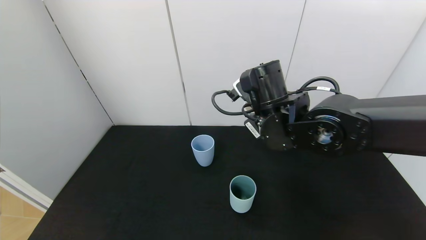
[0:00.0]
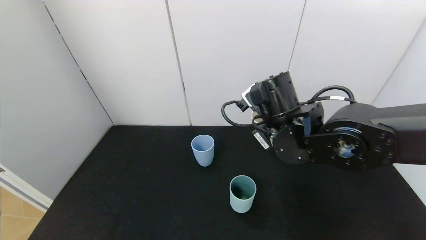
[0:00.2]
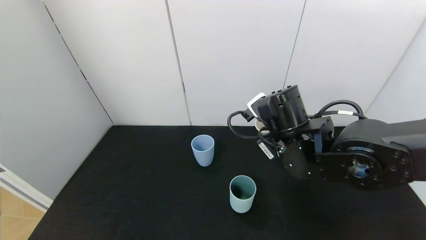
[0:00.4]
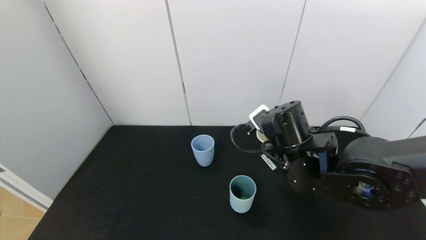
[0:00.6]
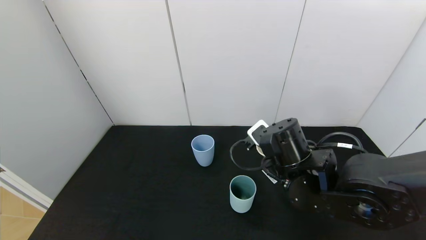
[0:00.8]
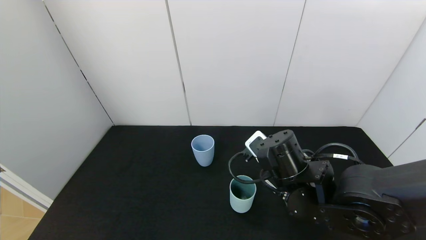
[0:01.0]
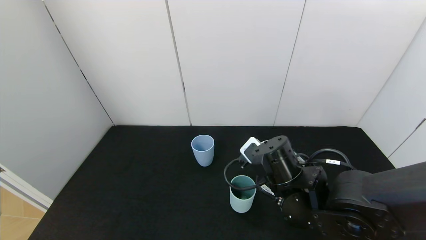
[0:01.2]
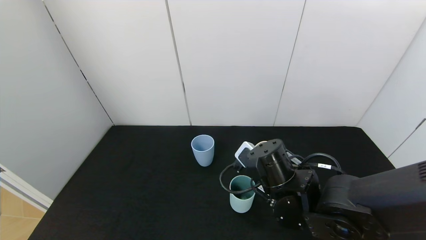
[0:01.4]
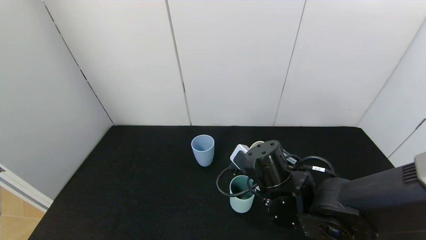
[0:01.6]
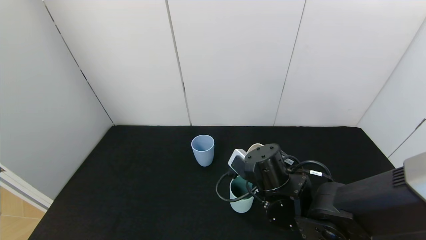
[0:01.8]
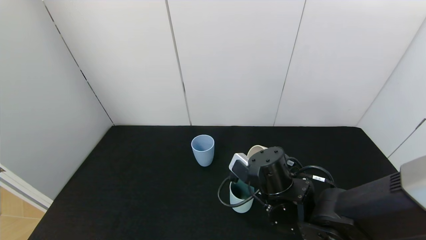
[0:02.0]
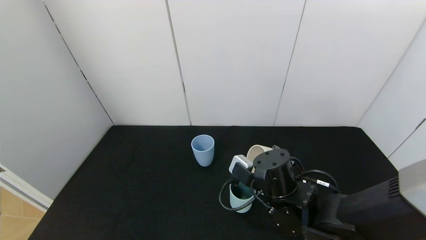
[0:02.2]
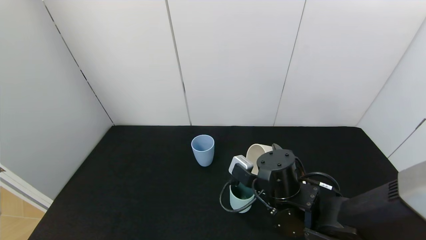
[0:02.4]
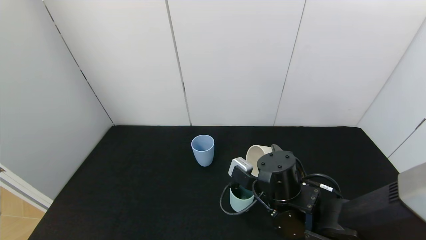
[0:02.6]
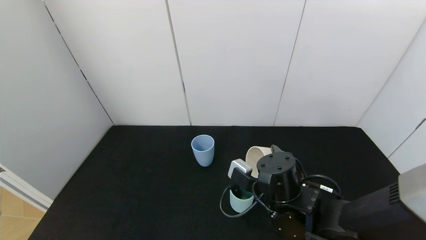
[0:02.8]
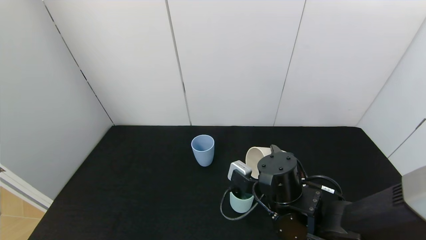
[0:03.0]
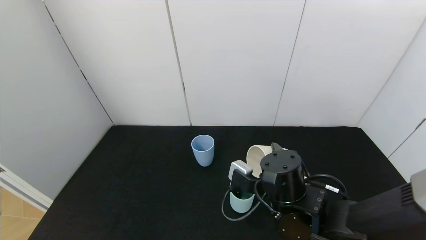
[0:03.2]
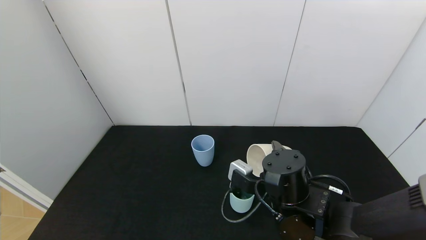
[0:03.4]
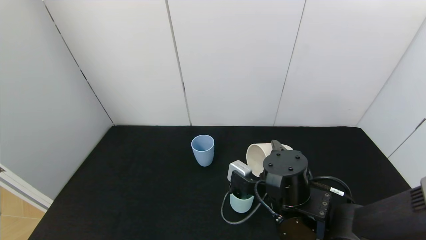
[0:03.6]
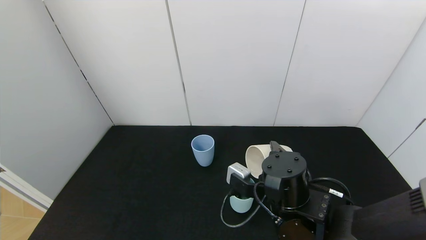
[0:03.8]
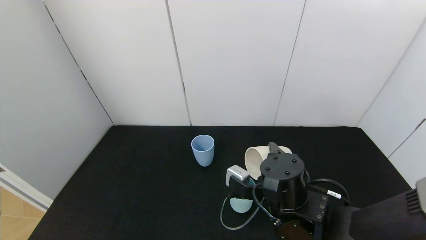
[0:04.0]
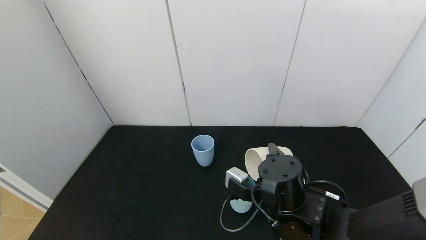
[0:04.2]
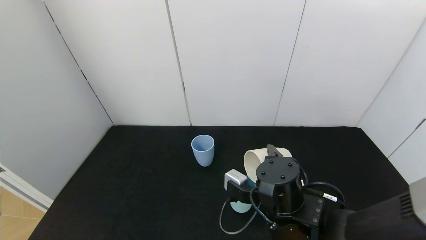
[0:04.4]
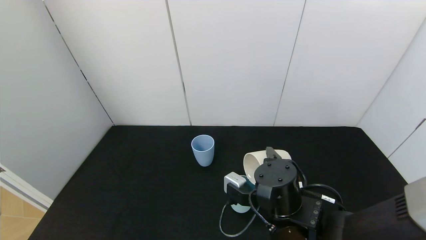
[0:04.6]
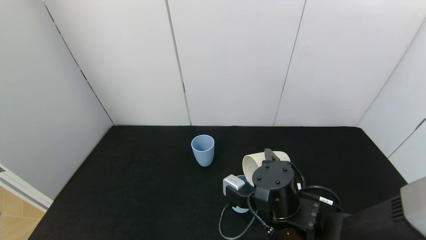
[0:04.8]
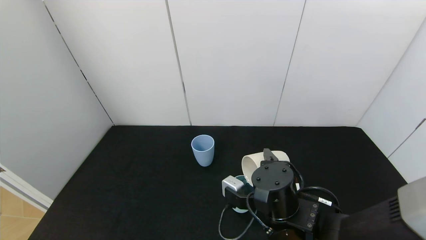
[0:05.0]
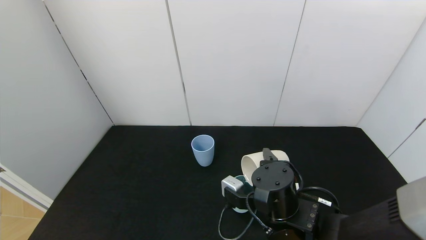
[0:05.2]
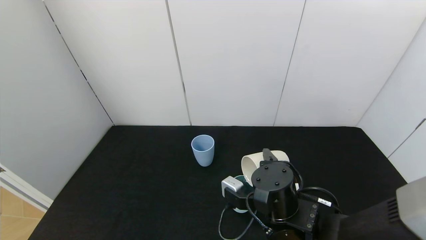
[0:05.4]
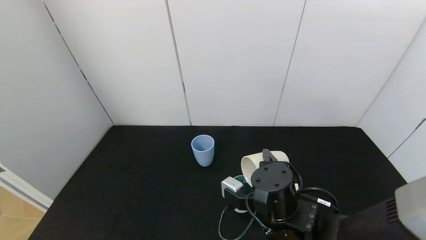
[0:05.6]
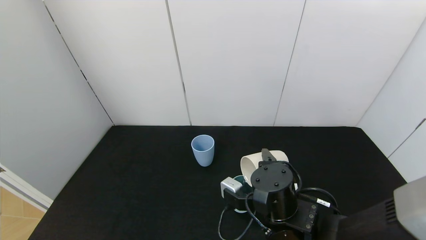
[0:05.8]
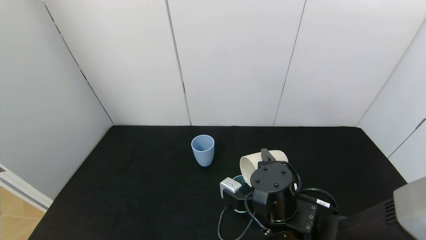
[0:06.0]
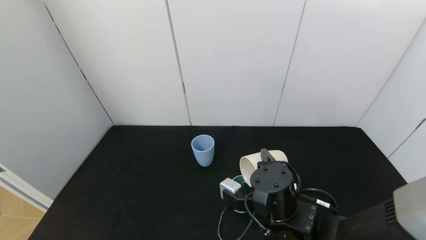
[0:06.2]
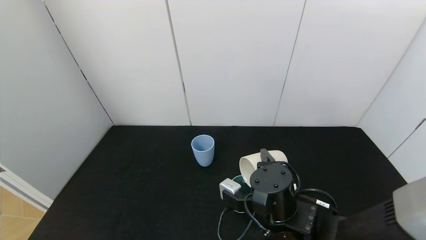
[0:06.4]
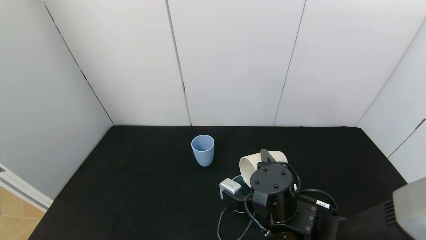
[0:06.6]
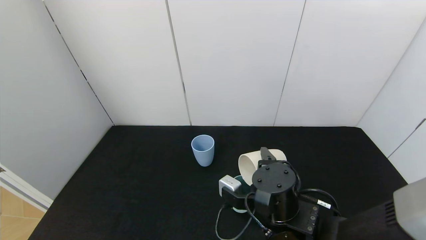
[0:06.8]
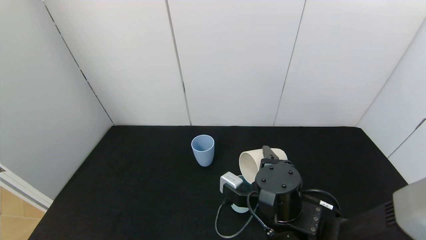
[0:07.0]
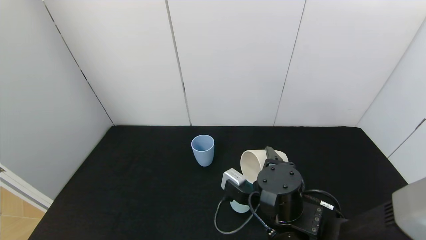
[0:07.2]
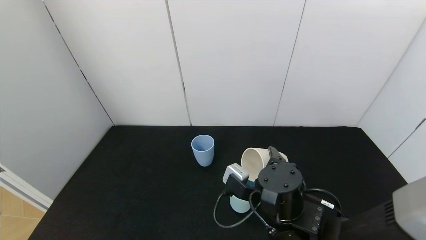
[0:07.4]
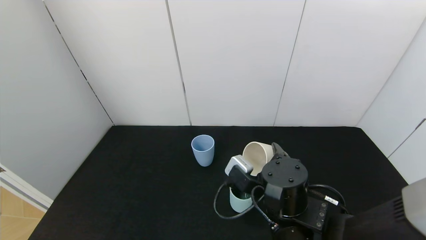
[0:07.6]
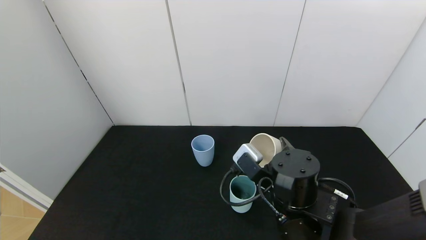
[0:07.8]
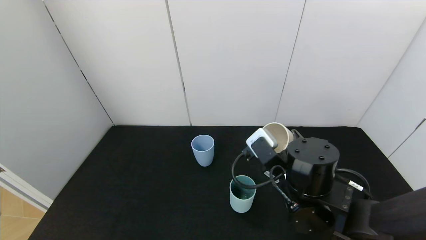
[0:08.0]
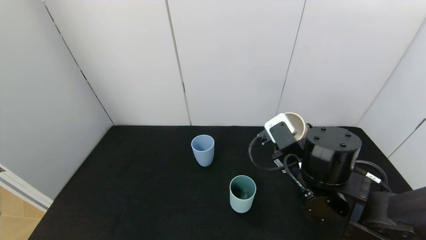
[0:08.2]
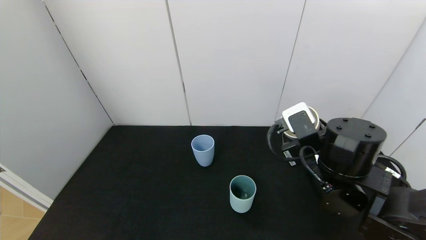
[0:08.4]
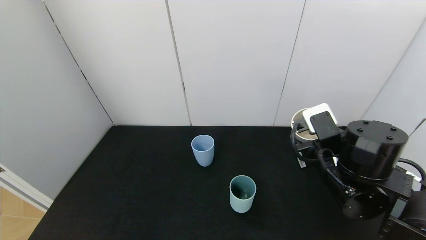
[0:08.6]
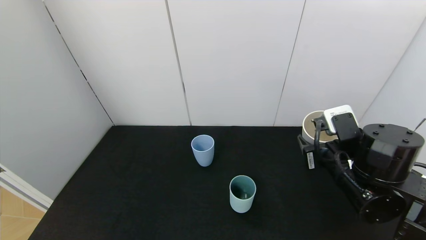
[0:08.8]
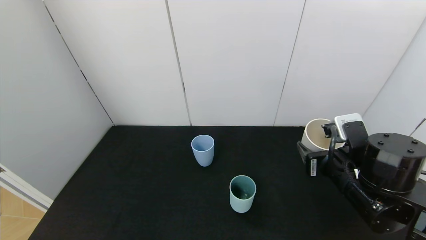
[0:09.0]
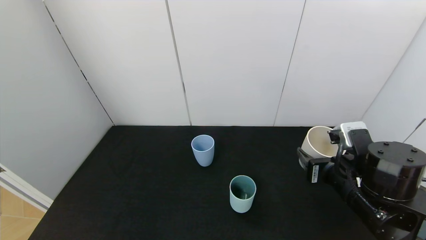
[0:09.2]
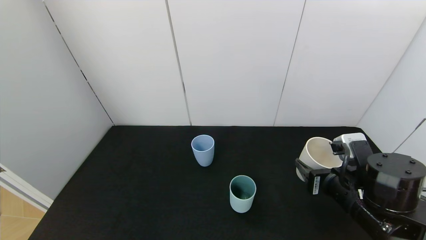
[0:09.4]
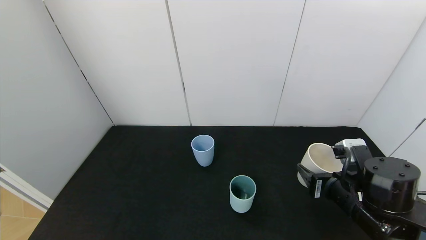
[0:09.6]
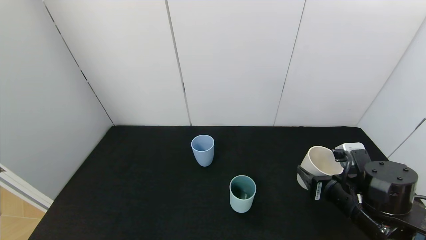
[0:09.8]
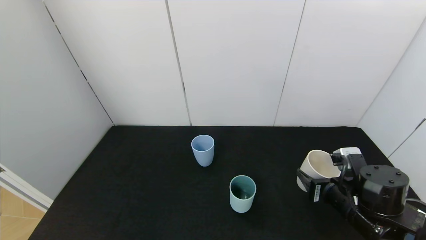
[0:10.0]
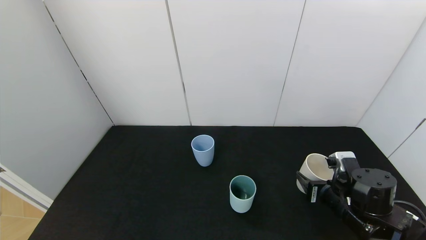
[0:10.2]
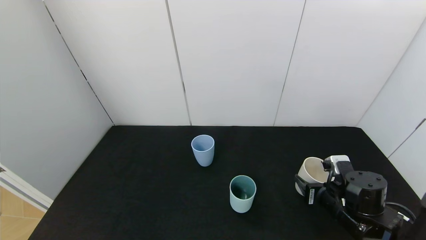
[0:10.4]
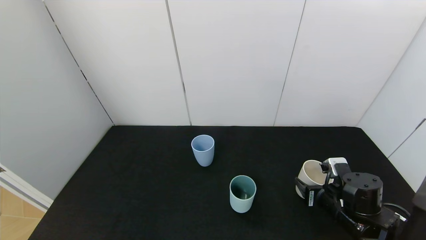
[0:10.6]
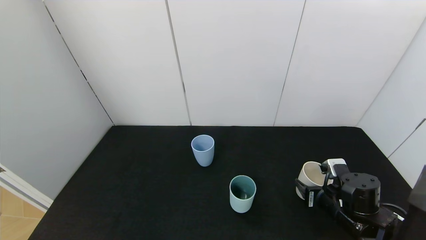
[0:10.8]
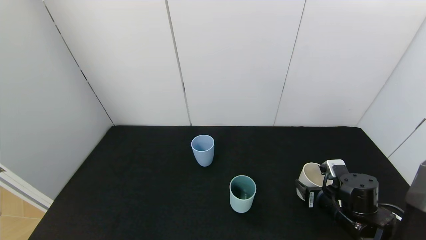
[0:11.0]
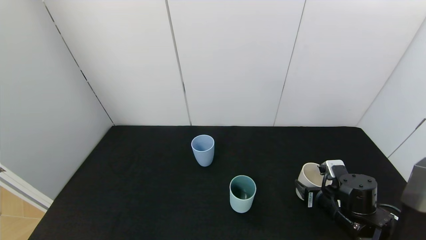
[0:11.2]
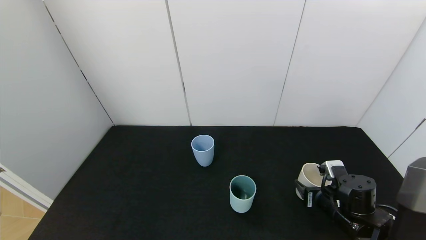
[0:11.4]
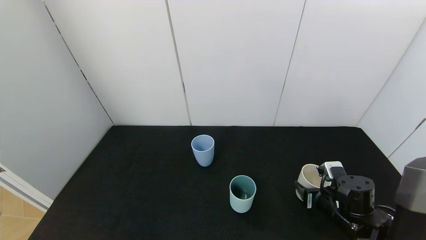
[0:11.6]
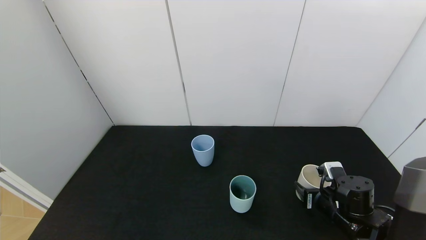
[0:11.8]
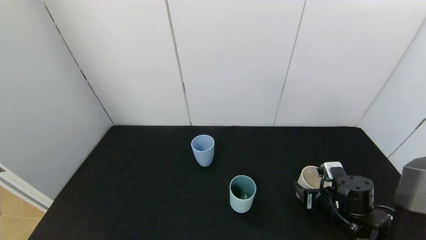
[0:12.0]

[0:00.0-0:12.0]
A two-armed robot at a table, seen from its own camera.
Task of the whole recording: use the gripper to pour the water into the other two cups on black table.
Step, 0:00.0 to 0:07.6: Pour water from white cup to green cup with the right gripper.
0:00.0 to 0:01.6: The right gripper heads downward and backward, covering some 10 cm.
0:01.6 to 0:03.0: The grippers make only small movements.
0:03.0 to 0:06.0: The grippers stay close to where they were, moving slightly.
0:07.6 to 0:09.0: The right gripper heads to the right, covering some 10 cm.
0:09.0 to 0:10.4: The right gripper heads downward, covering roughly 10 cm.
0:10.4 to 0:12.0: The right gripper opens its fingers.

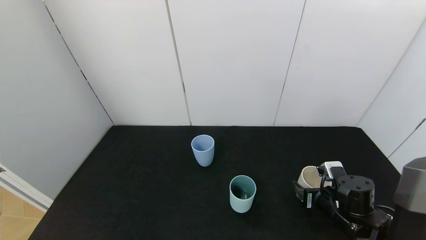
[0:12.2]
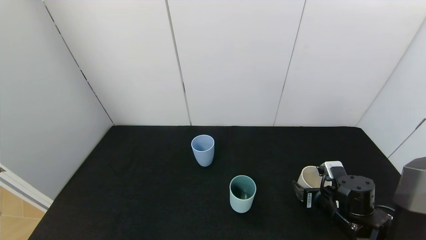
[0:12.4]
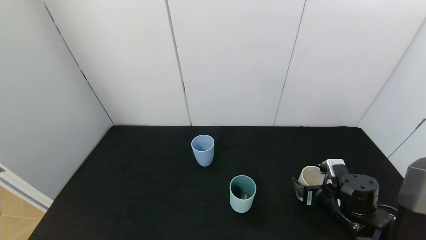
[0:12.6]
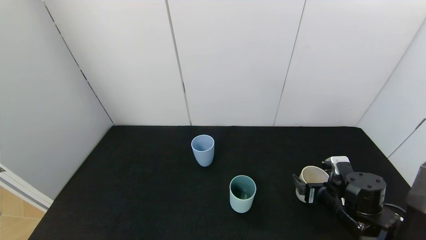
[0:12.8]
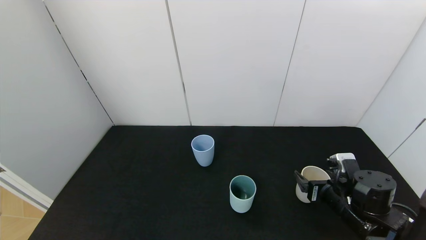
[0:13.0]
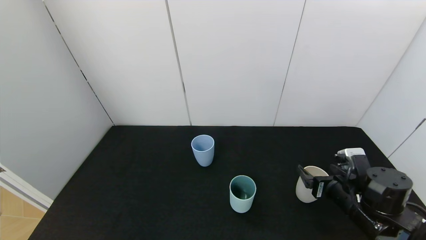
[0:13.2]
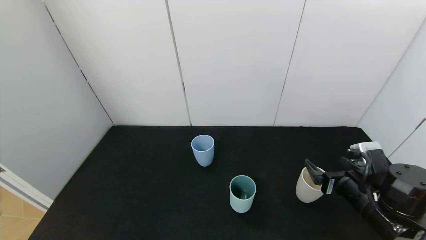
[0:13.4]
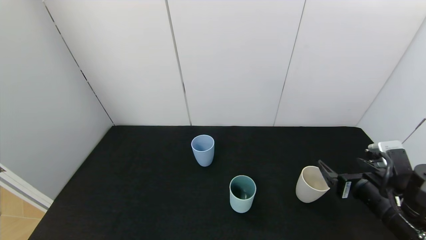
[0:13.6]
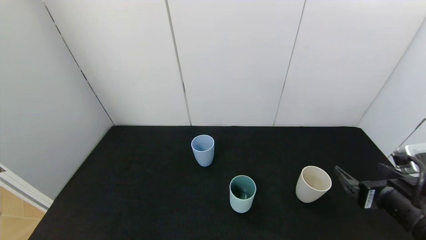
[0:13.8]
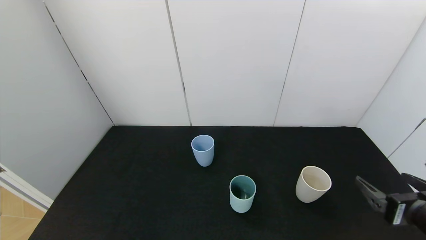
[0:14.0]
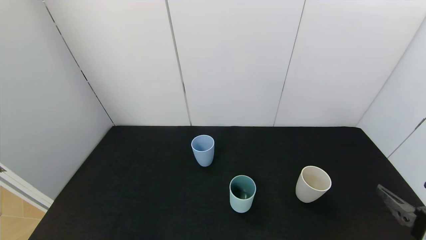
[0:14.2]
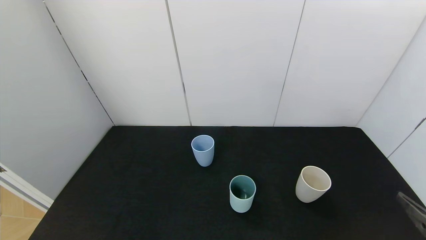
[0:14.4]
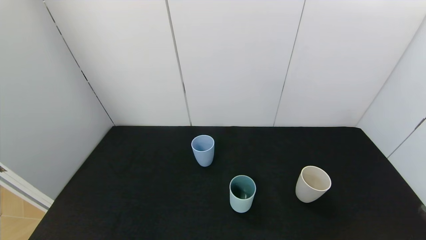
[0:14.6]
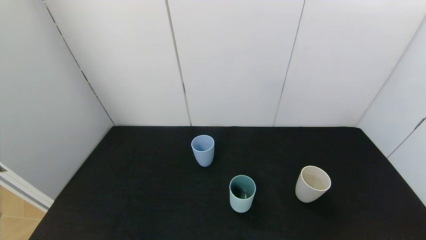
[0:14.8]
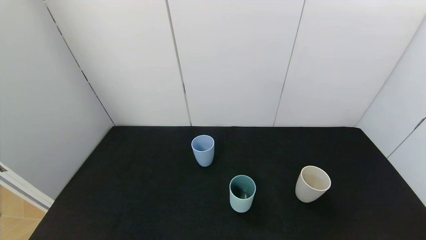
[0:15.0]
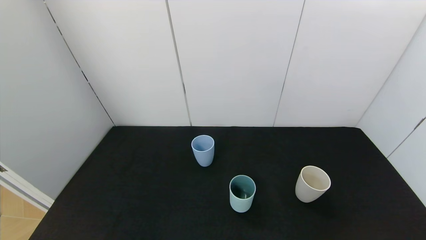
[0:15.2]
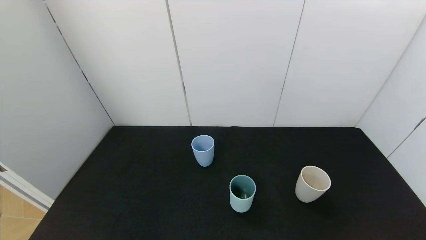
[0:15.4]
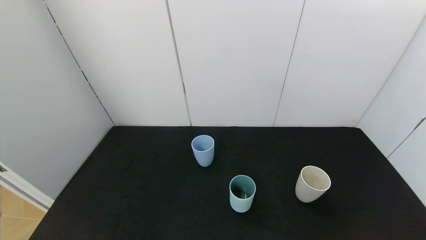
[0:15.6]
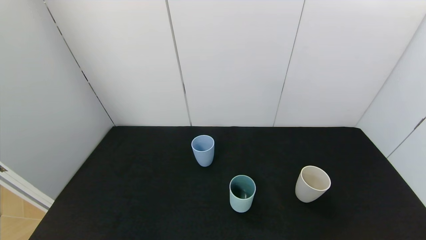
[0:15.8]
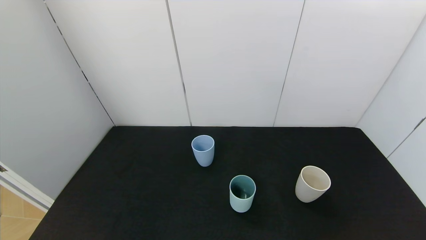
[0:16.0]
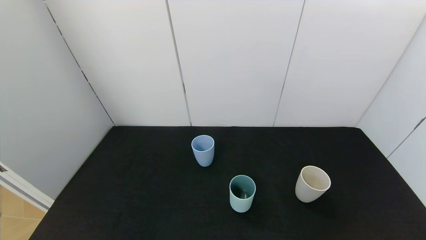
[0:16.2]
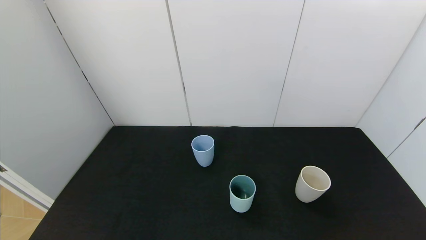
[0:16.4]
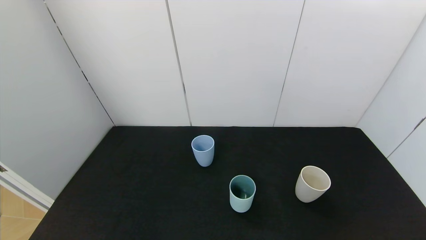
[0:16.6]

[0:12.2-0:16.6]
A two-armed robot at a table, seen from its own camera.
Task of the whole recording: use the gripper to pour the water into the other two cups on black table.
0:12.2 to 0:13.6: The right gripper shifts some 10 cm upward and backward, and opens up.
0:13.6 to 0:15.2: The right gripper is displaced backward by some 20 cm.
